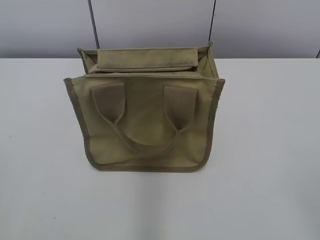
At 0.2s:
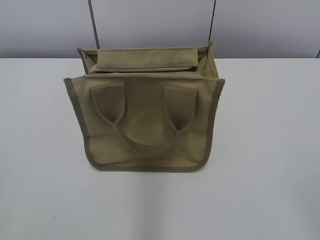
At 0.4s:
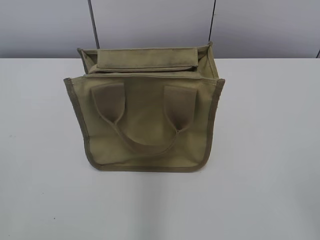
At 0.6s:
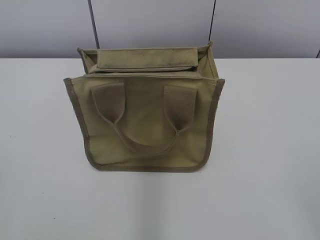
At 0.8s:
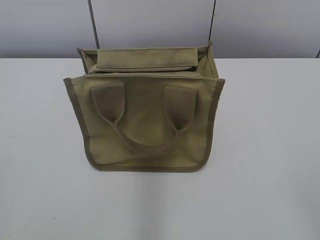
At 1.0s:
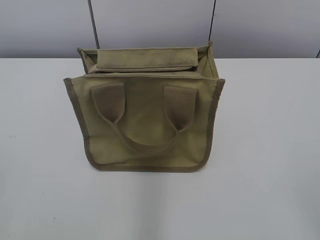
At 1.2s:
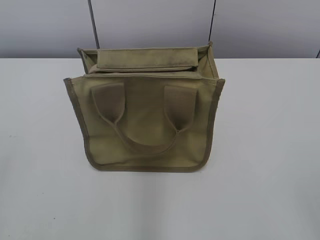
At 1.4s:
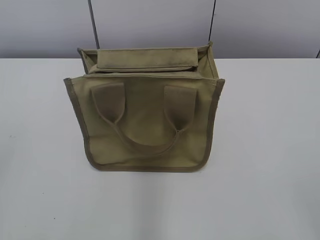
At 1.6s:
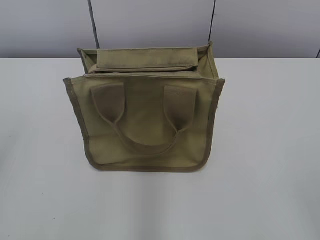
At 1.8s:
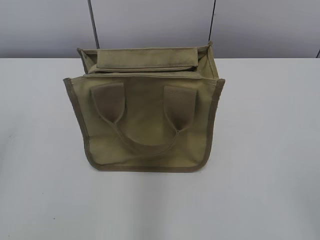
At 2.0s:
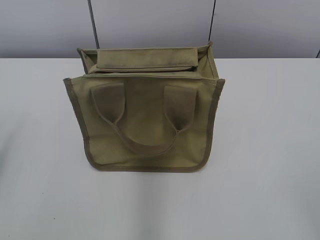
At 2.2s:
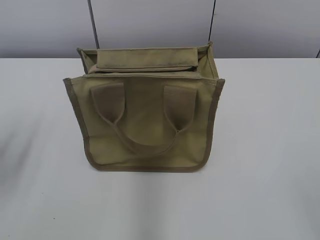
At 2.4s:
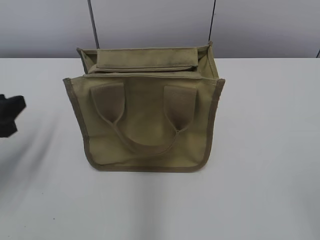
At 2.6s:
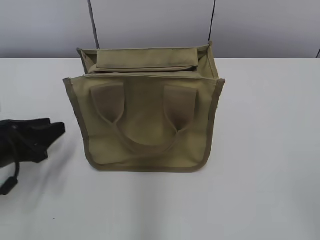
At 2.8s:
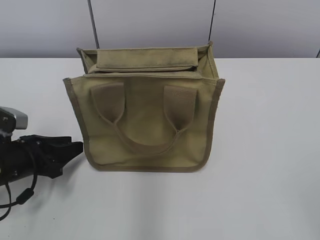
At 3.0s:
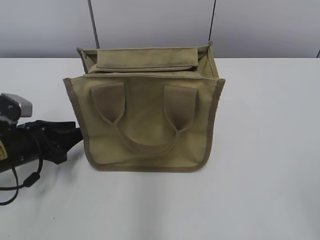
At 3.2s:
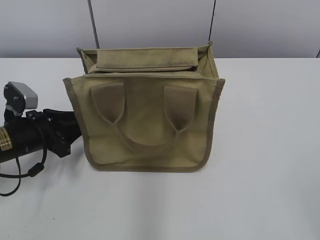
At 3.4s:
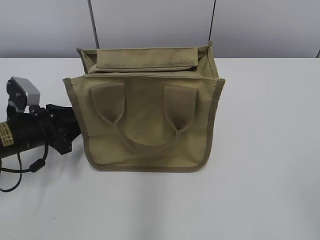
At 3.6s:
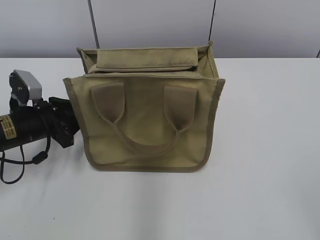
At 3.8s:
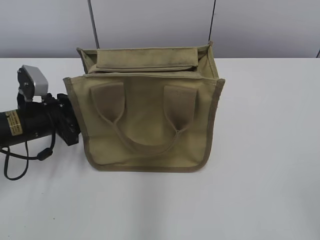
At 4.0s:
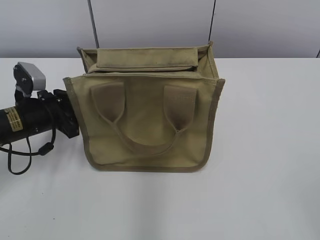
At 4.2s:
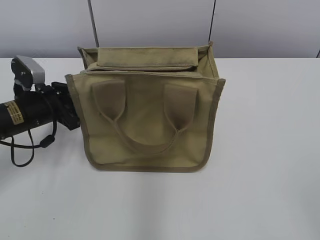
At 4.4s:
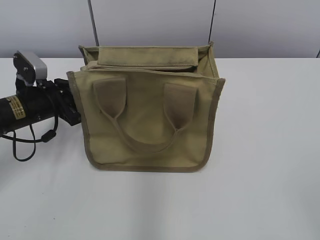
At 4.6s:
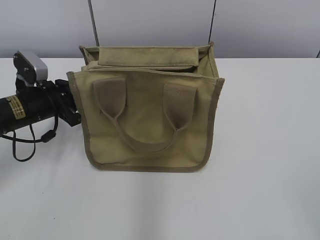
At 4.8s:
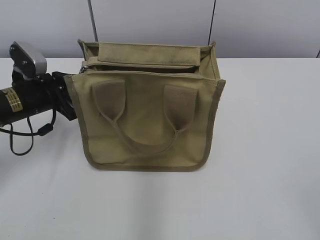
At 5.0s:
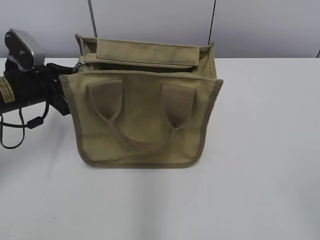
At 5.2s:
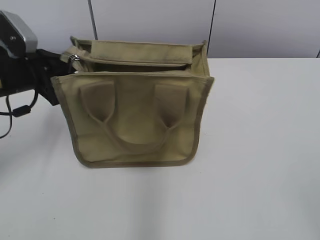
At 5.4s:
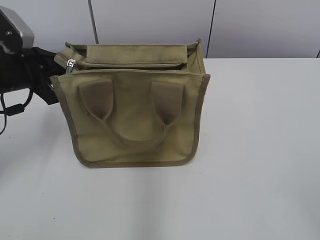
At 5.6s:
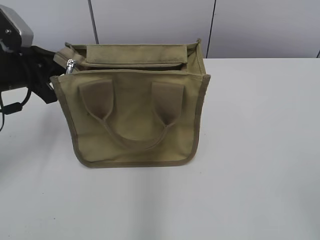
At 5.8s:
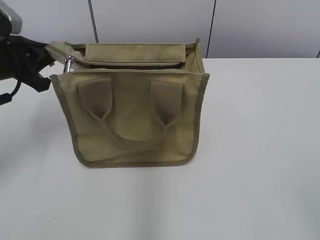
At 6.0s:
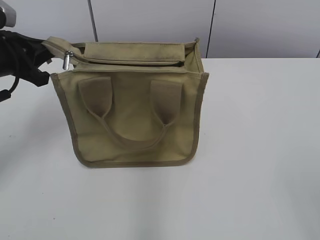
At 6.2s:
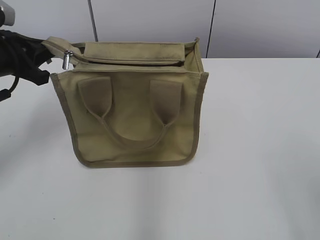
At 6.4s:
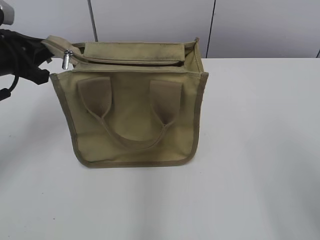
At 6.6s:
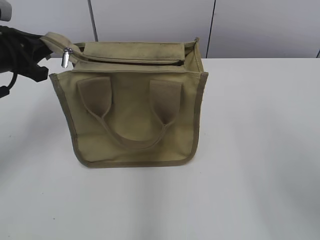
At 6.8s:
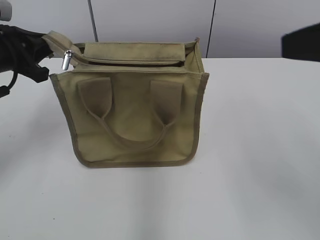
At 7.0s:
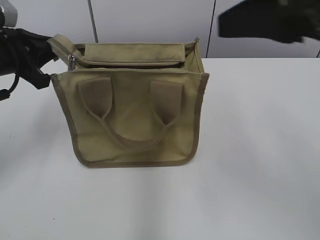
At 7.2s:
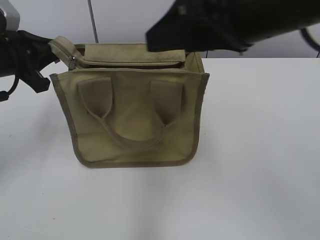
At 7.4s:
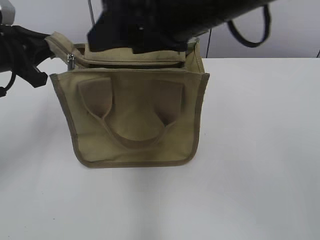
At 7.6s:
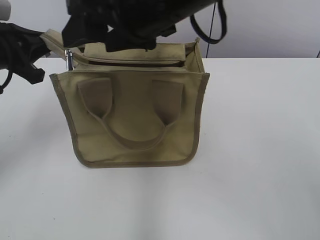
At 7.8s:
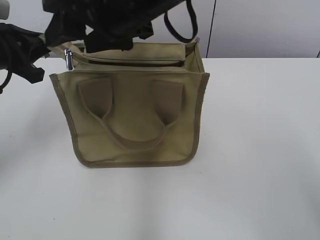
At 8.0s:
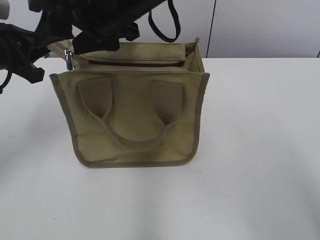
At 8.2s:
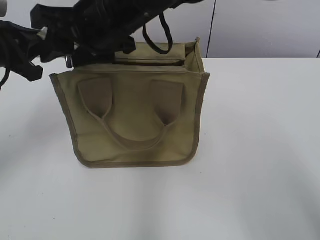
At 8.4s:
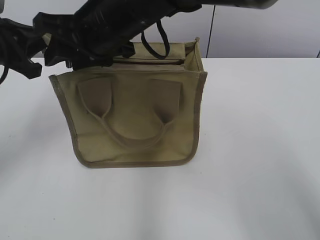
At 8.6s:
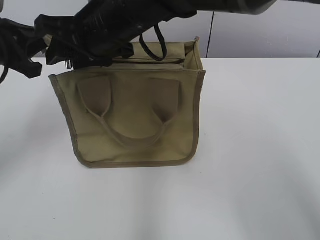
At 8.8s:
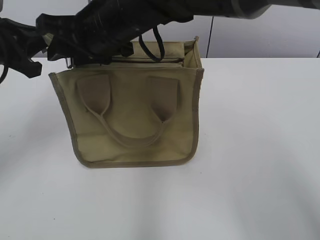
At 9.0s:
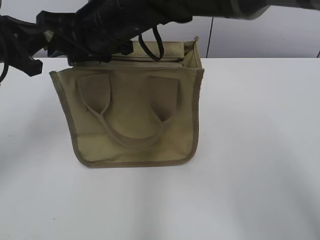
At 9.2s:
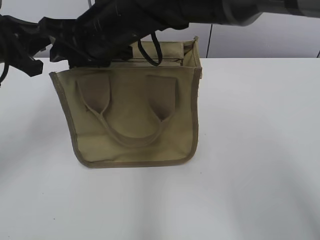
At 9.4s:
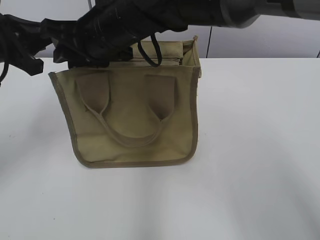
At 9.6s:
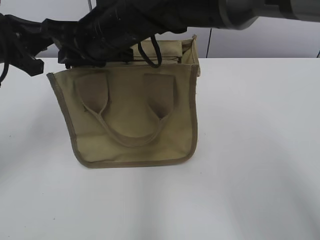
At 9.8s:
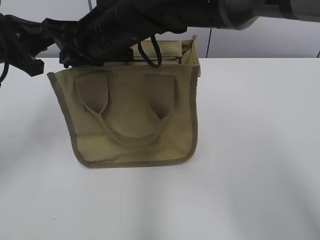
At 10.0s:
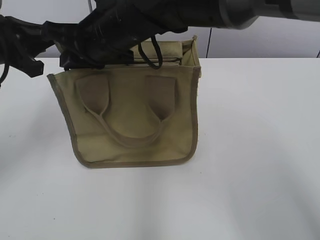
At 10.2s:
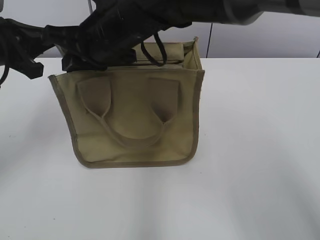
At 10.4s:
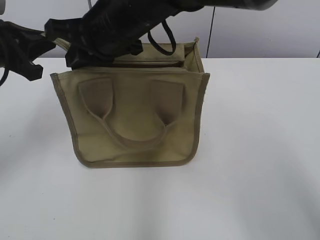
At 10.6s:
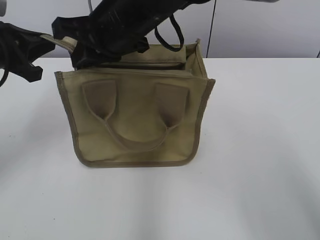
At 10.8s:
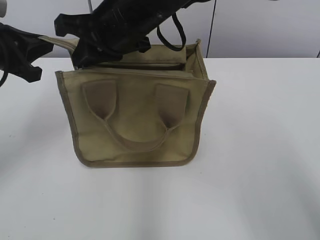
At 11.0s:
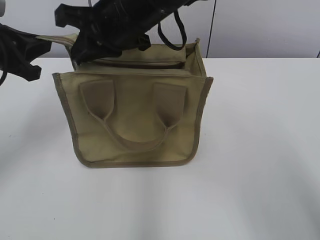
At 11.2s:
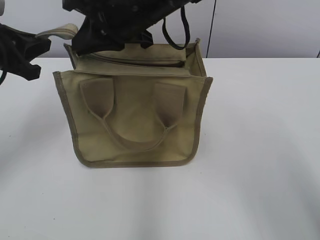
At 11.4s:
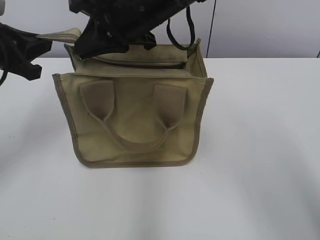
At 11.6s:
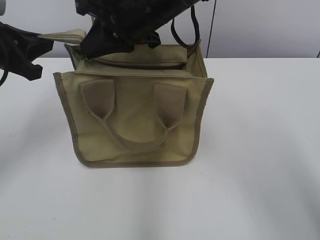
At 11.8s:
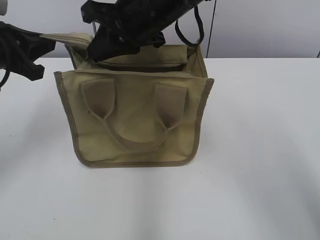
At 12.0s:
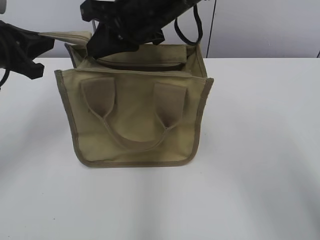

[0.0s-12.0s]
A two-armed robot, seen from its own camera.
1.6s to 3.0s: The left gripper goes roughly 30 cm downward and forward.
3.0s to 4.4s: The left gripper shifts about 5 cm forward.
4.4s to 6.0s: The left gripper travels upward by roughly 10 cm.
6.0s to 7.6s: The right gripper moves forward and to the left, about 40 cm.
7.6s to 9.0s: The right gripper goes some 10 cm to the left, forward and downward.
9.0s to 10.4s: The right gripper closes.
10.4s to 12.0s: The right gripper ends up about 5 cm from where it was.

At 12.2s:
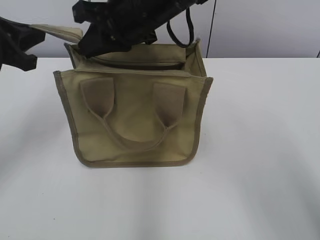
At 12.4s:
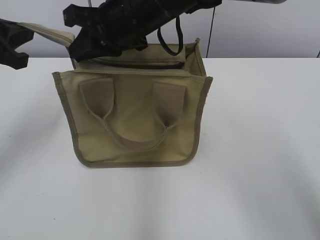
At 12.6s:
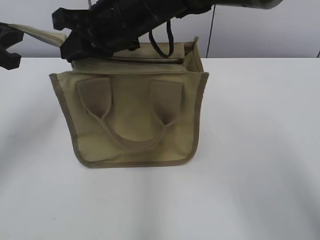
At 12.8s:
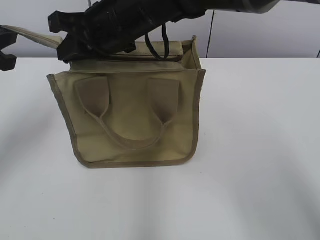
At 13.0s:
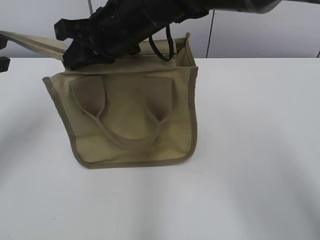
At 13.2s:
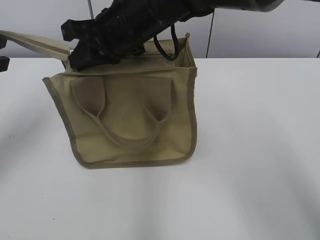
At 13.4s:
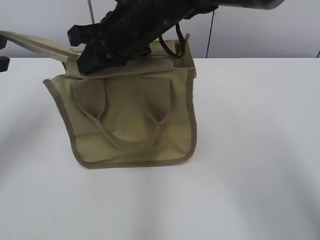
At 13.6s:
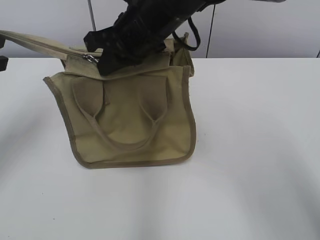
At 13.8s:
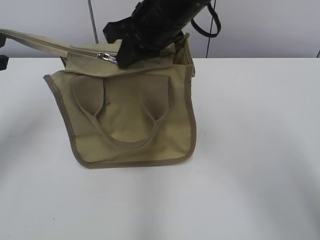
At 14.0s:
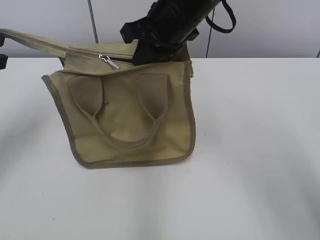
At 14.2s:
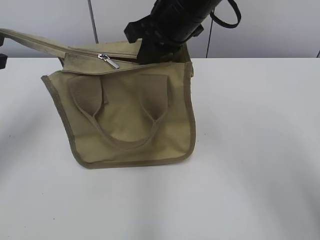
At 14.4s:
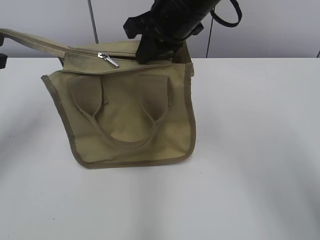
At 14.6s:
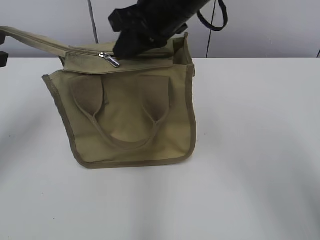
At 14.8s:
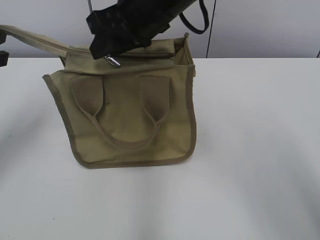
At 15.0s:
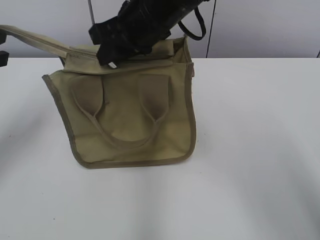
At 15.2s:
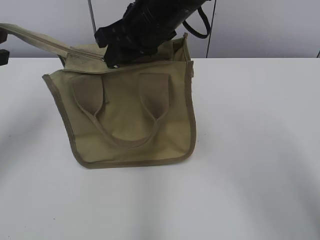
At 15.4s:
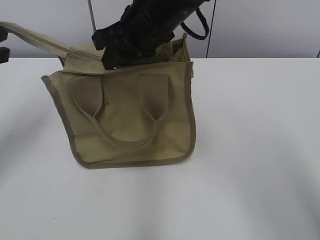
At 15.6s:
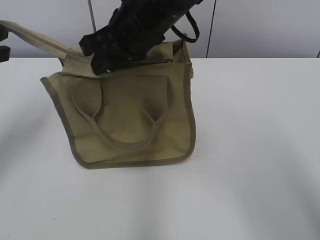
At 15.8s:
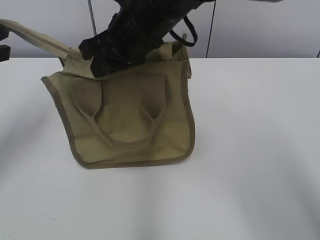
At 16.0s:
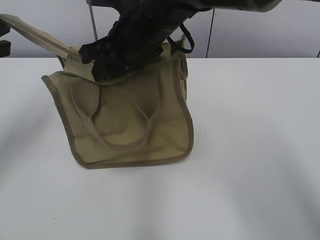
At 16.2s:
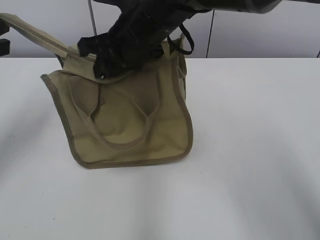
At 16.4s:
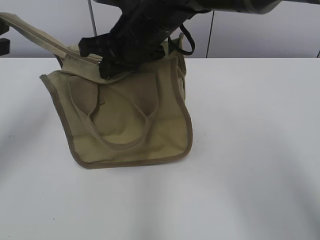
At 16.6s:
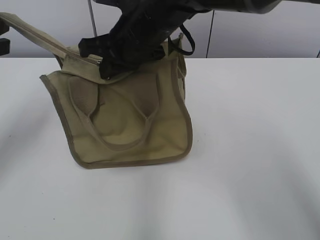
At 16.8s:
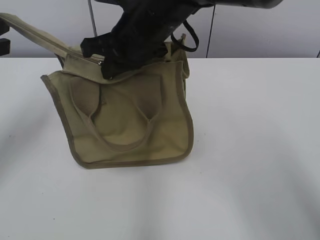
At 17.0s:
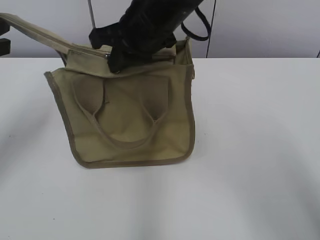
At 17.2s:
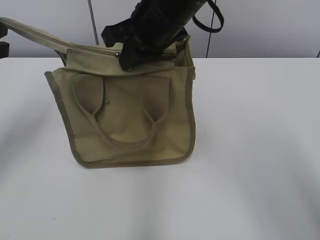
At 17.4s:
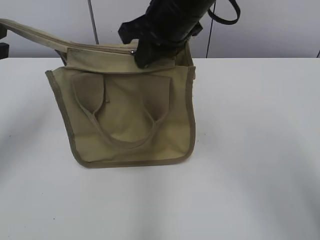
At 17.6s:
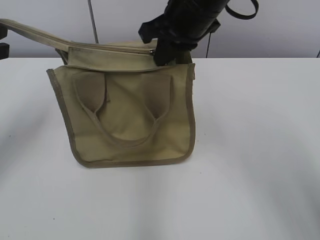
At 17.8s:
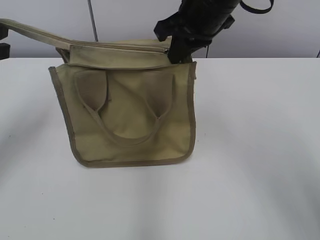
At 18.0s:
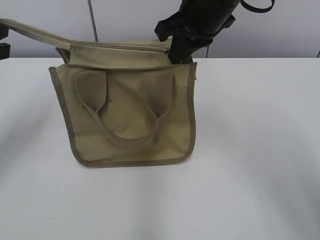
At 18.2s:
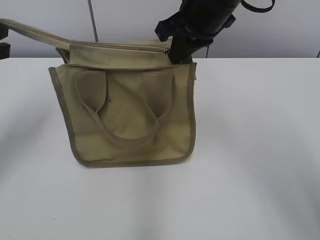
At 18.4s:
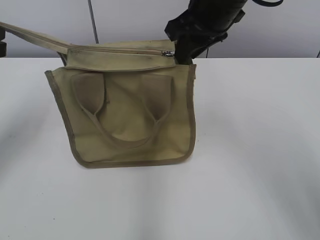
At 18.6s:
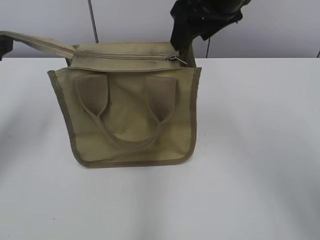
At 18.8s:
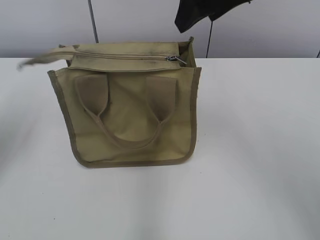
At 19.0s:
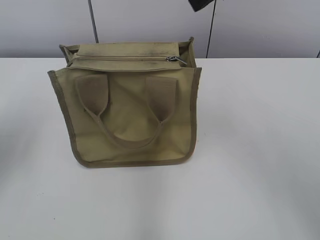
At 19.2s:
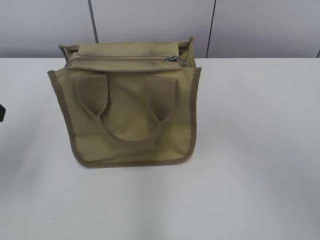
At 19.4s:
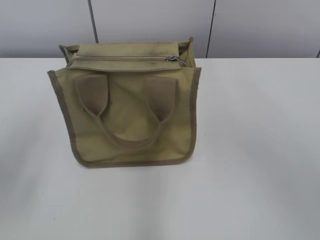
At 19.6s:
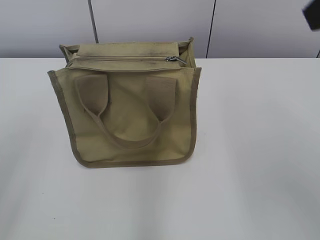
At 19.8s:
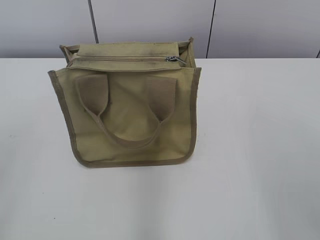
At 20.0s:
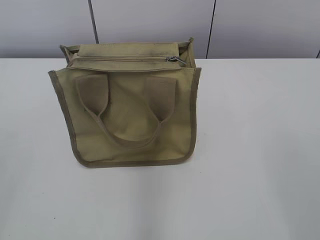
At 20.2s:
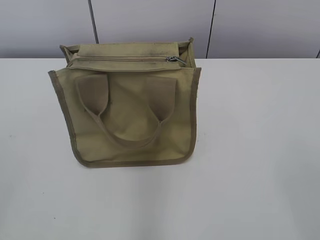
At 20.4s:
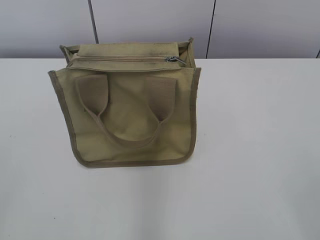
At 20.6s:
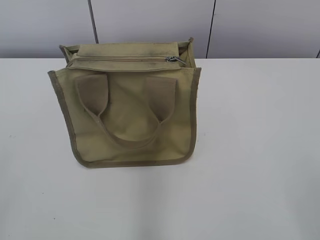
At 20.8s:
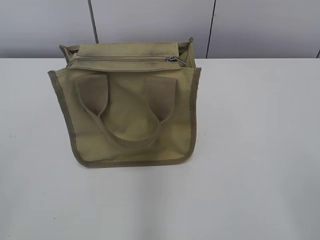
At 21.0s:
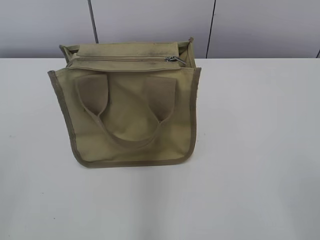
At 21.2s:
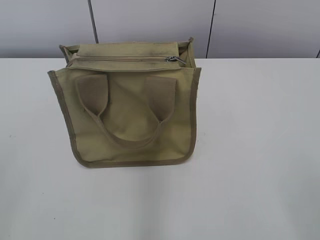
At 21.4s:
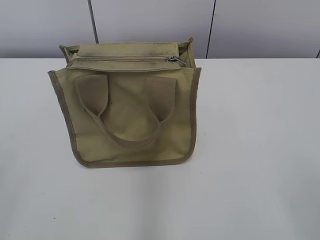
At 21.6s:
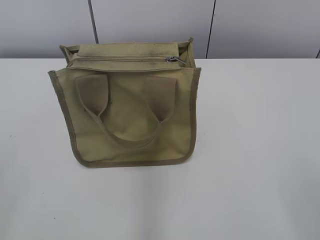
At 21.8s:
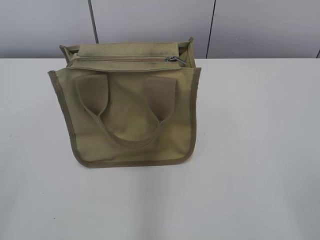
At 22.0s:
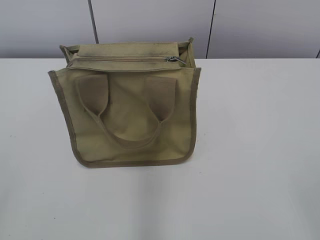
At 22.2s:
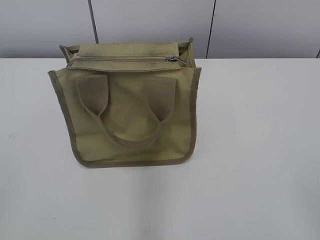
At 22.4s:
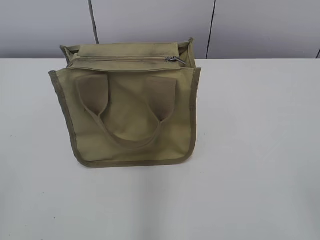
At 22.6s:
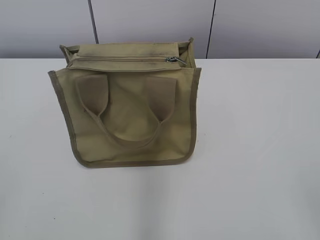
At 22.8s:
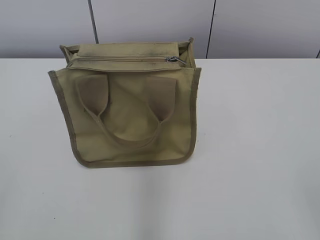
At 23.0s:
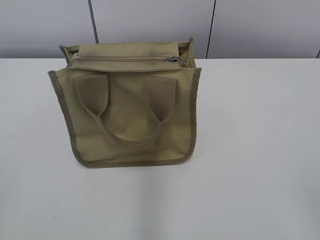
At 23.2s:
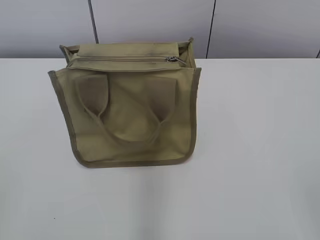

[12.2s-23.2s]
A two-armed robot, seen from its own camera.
Step, 12.2s to 18.4s: Zip up the bag with your right hand.
12.2s to 13.8s: There are only small adjustments of the grippers.
13.8s to 15.4s: The right gripper opens its fingers.
15.4s to 17.0s: The right gripper closes its fingers.
17.0s to 18.4s: The right gripper moves to the right, some 10 cm, and opens its fingers.
18.4s to 20.0s: The left gripper shifts some 25 cm backward, and opens. The right gripper goes approximately 35 cm backward and to the right, and opens.
